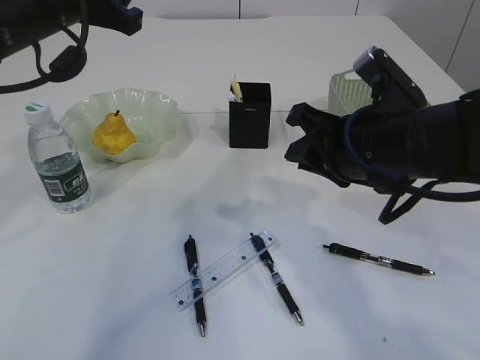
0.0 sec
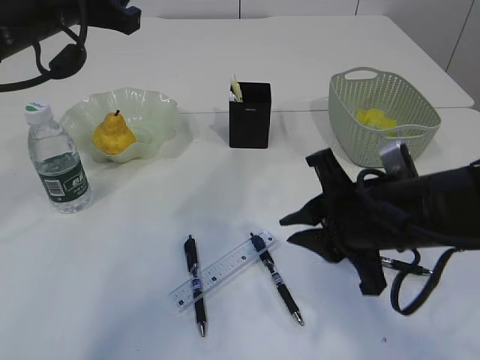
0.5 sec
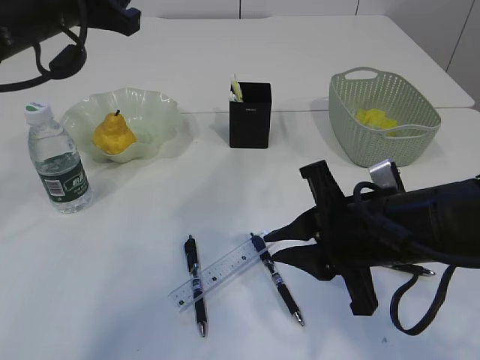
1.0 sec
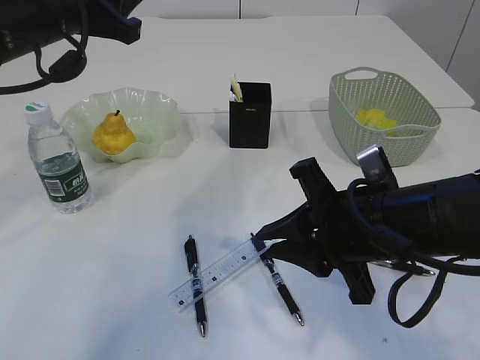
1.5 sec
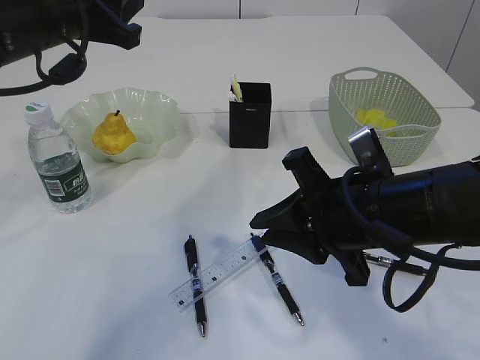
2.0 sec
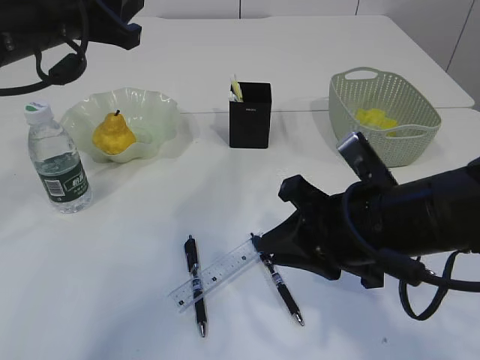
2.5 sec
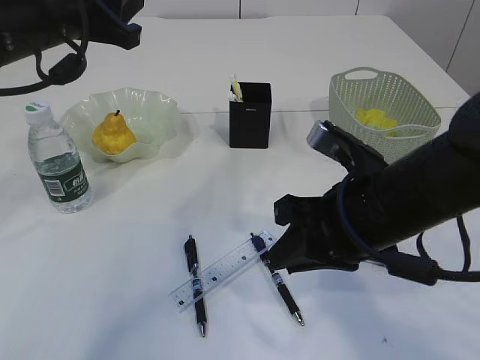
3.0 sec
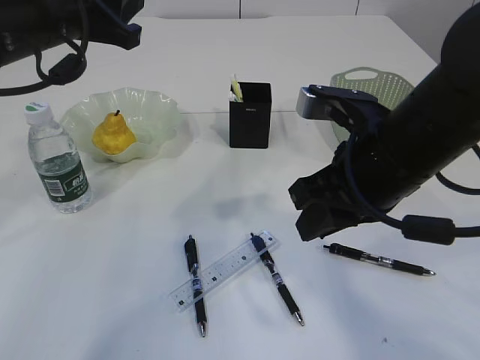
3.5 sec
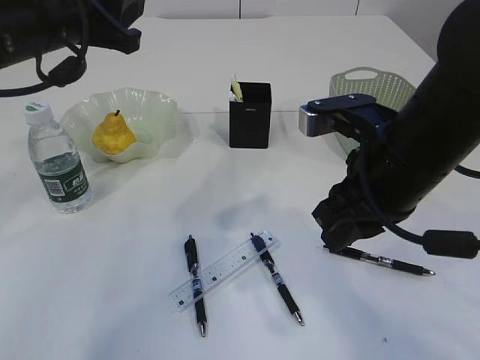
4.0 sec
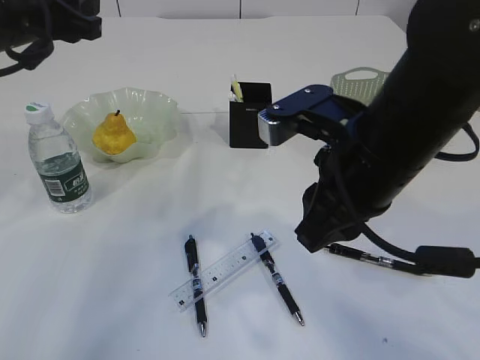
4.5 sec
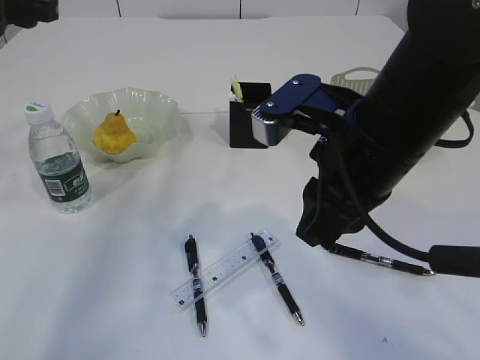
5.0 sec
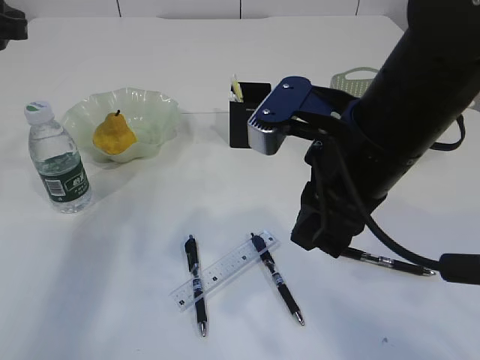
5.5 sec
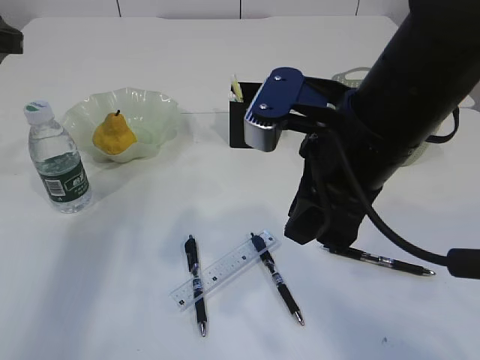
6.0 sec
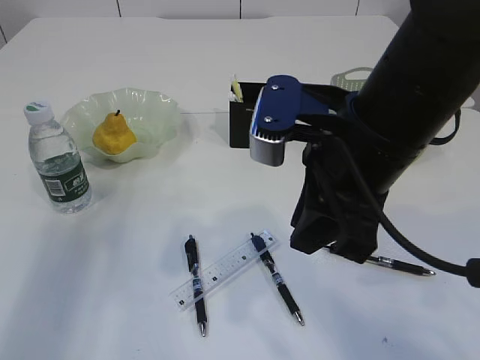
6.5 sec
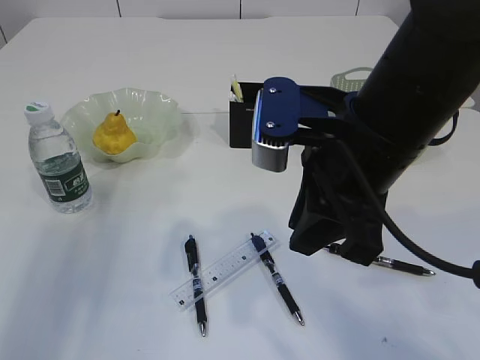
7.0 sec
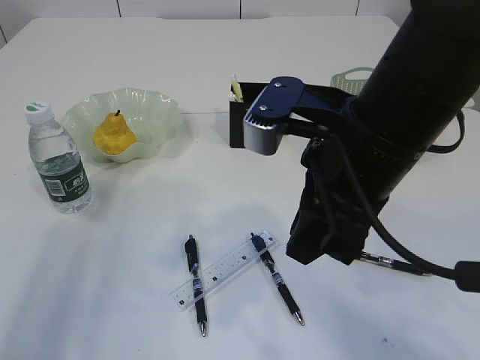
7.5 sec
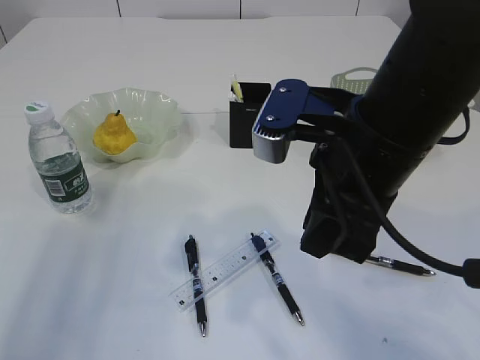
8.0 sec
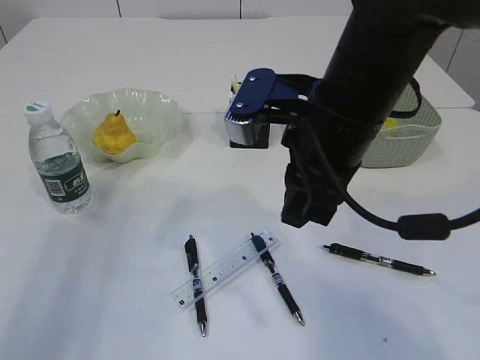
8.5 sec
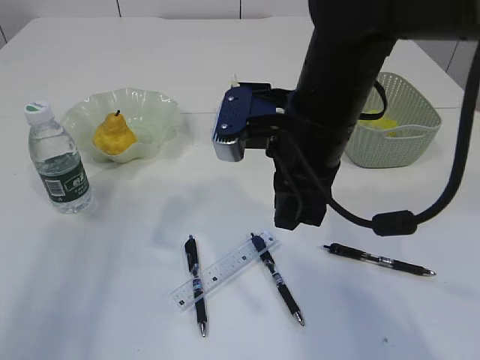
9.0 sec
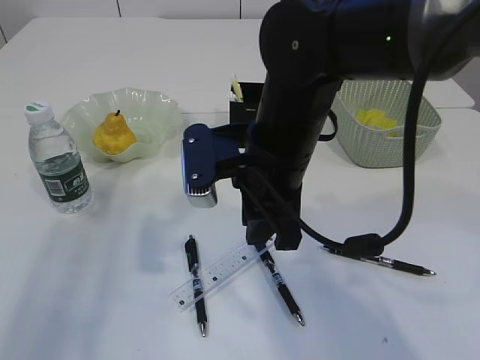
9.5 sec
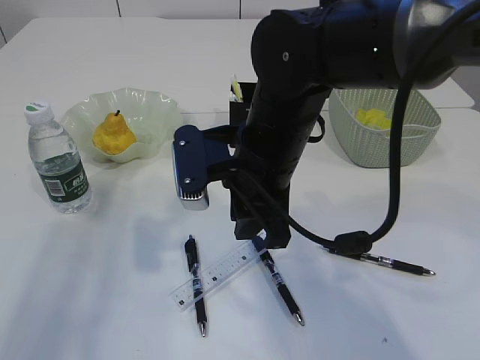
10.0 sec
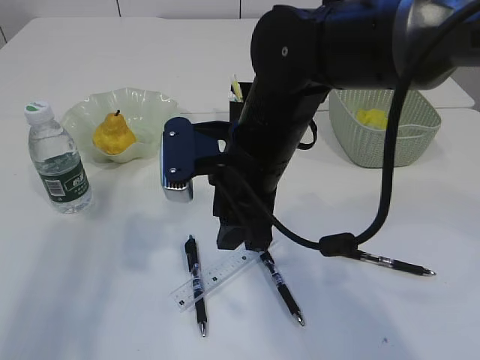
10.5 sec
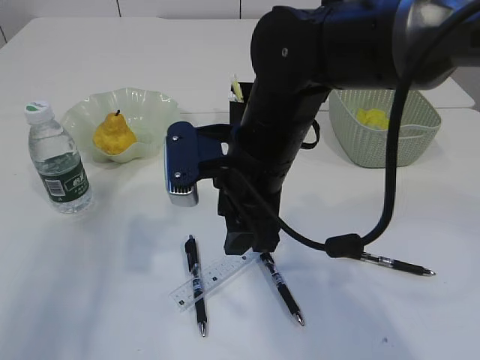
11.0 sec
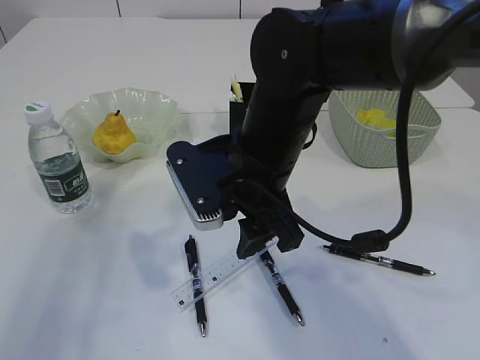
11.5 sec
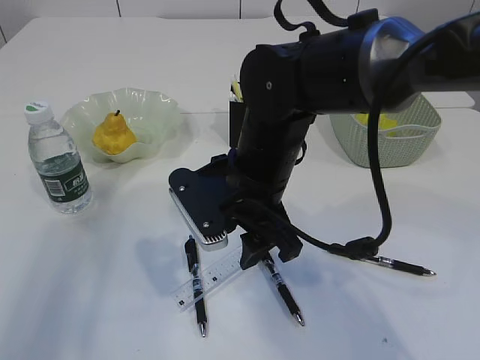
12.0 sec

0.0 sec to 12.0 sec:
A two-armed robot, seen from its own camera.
0.0 sec to 2.0 sec: The right gripper heads backward, covering about 5 cm.
2.0 sec to 4.0 sec: The right gripper ends up about 5 cm from where it was.
4.0 sec to 6.0 sec: The left gripper shifts roughly 10 cm to the left, while the right gripper ends up some 5 cm from where it was.
6.0 sec to 8.0 sec: The left gripper heads backward, covering about 15 cm.
8.0 sec to 10.0 sec: The right gripper goes some 10 cm to the left, forward and downward.
10.0 sec to 12.0 sec: The right gripper opens up.

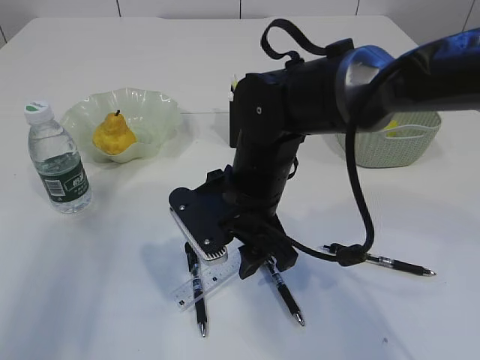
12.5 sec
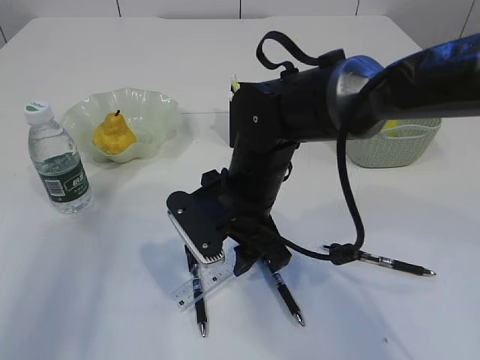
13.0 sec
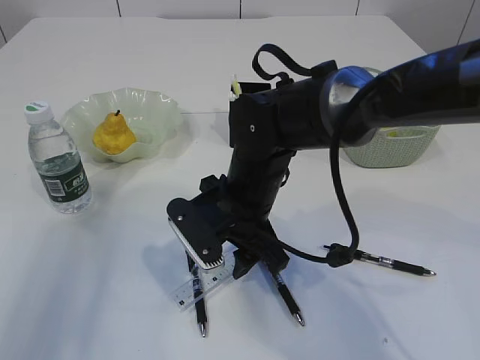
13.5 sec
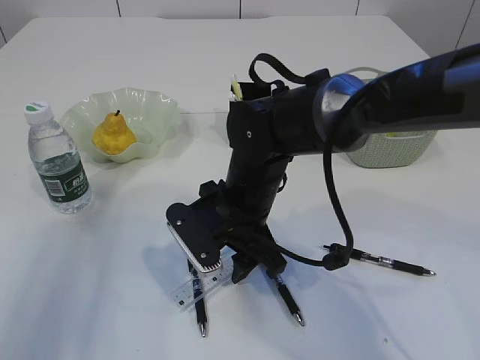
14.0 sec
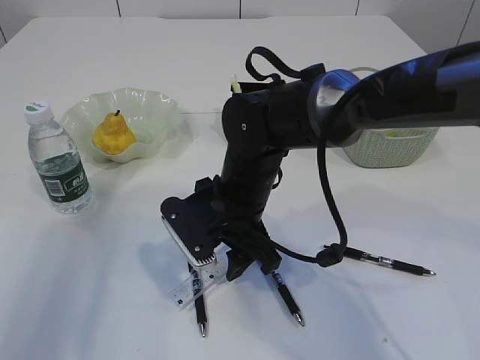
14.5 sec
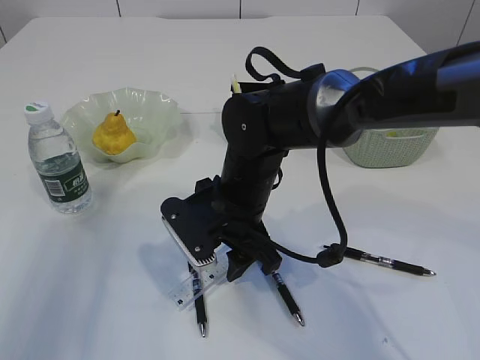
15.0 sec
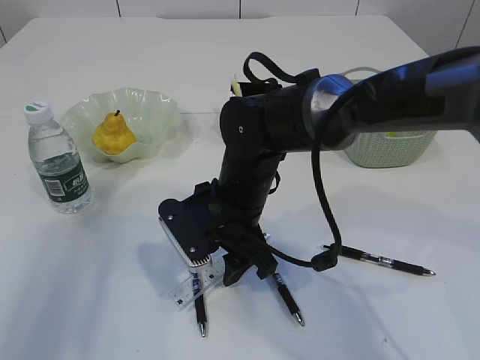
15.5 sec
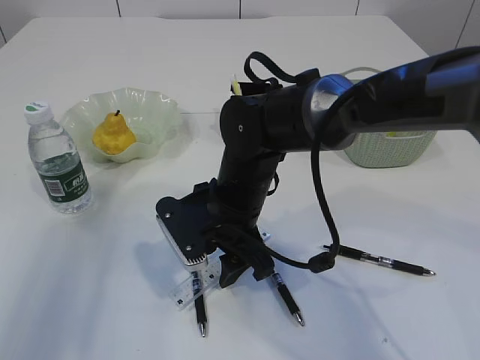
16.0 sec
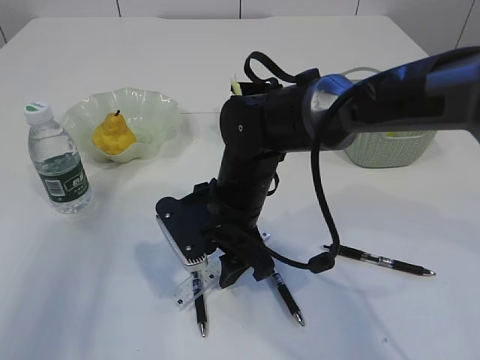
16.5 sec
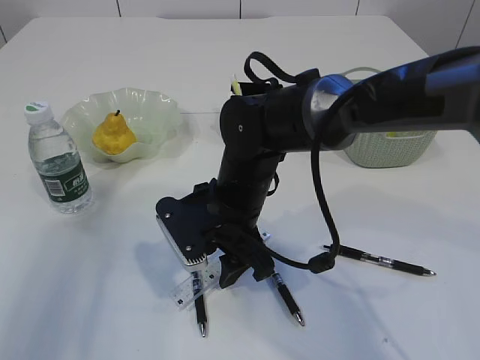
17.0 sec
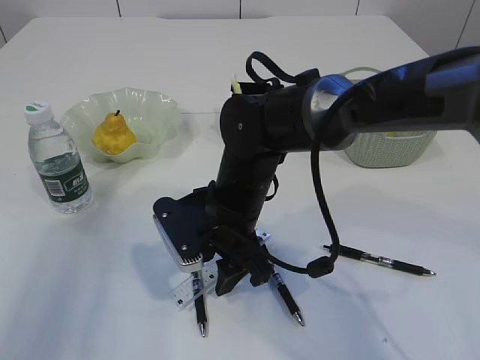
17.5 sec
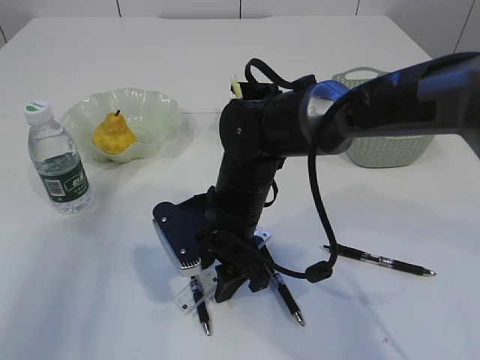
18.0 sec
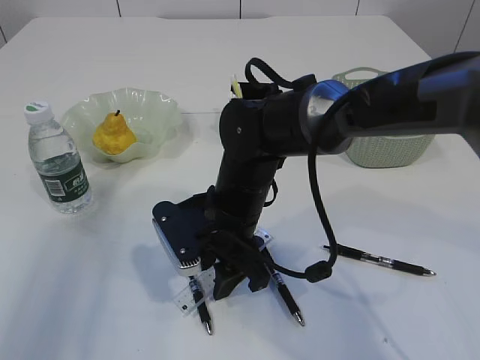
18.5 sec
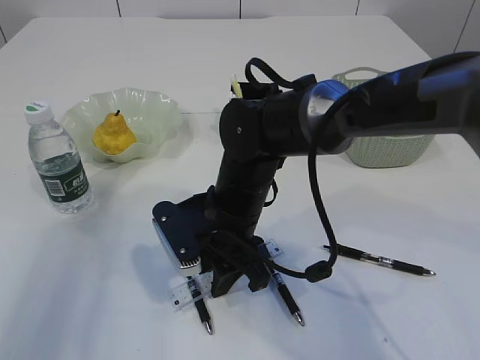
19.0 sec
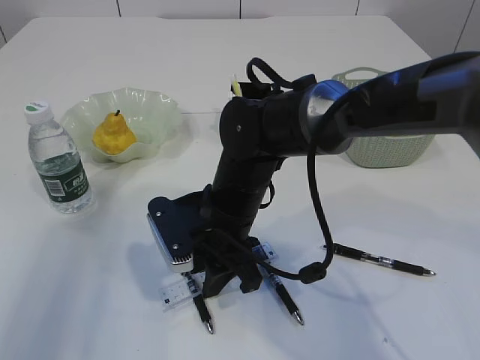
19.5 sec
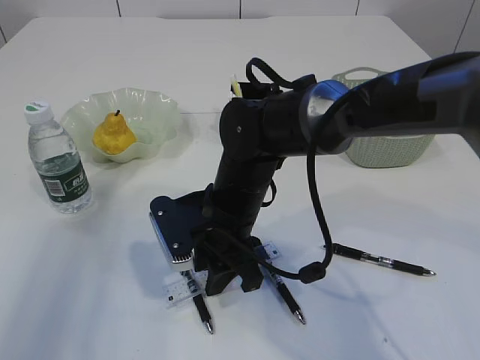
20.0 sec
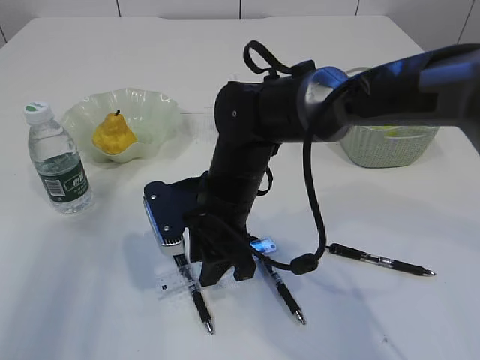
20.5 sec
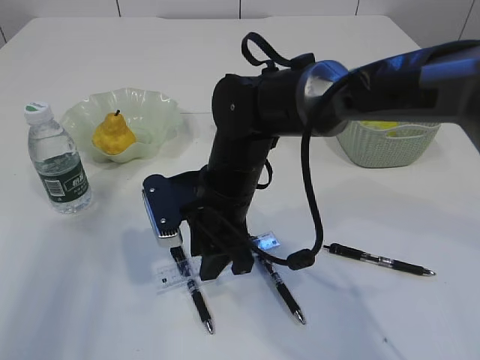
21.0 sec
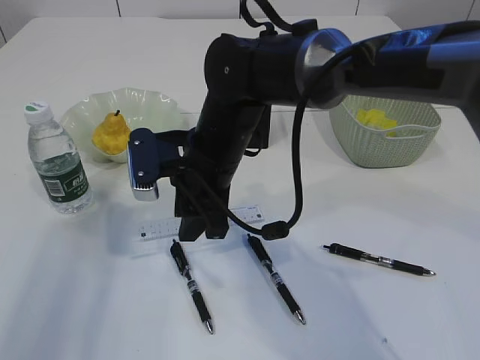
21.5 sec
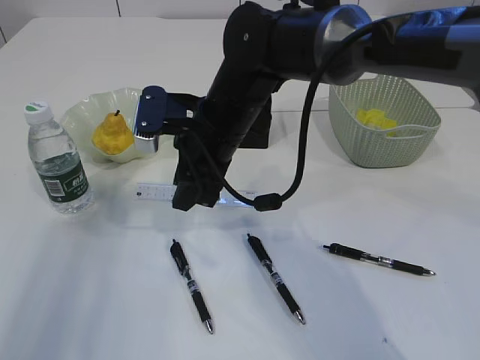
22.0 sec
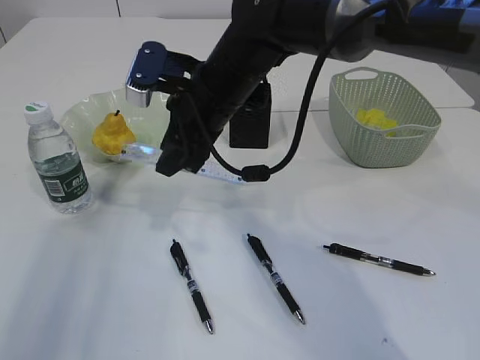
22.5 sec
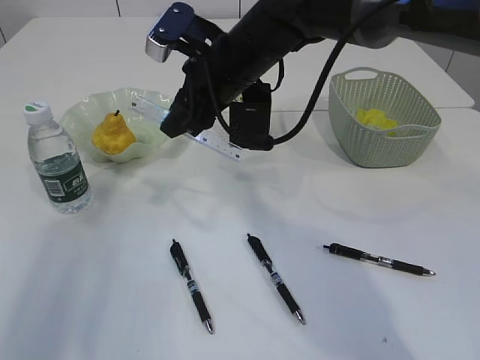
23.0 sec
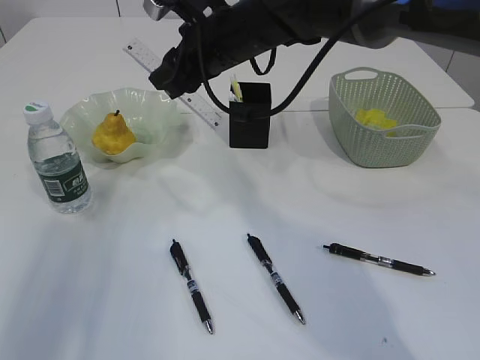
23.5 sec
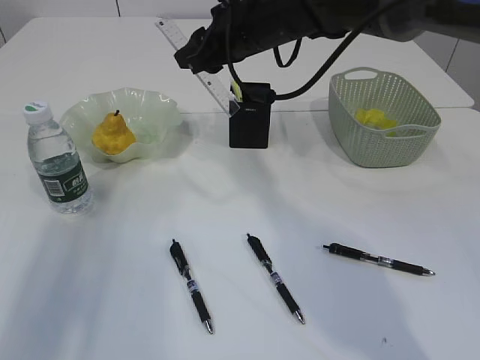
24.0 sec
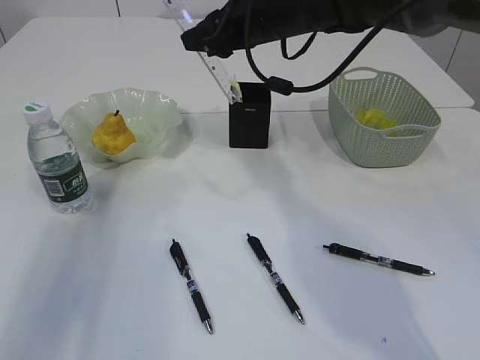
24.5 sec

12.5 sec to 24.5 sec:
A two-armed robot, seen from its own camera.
Step, 12.5 sec to 22.0 sec: pick up the ruler.
12.5 sec to 14.5 sec: The grippers make only small movements.
14.5 sec to 16.5 sec: The two grippers keep their place.
16.5 sec to 20.5 sec: The grippers stay close to where they were, moving slightly.
20.5 sec to 22.5 sec: The right gripper is displaced upward and forward by about 10 cm.
22.5 sec to 24.5 sec: The right gripper travels forward and to the right by roughly 10 cm.

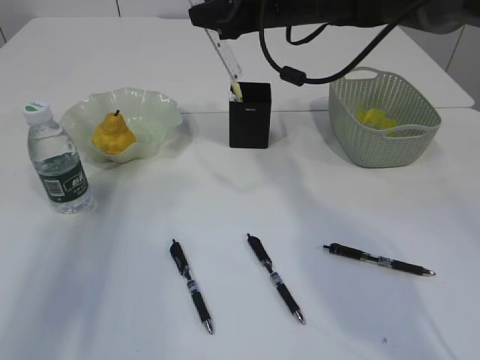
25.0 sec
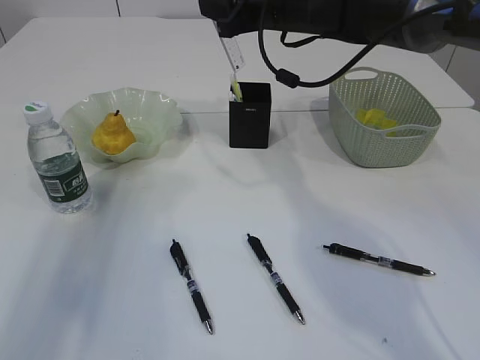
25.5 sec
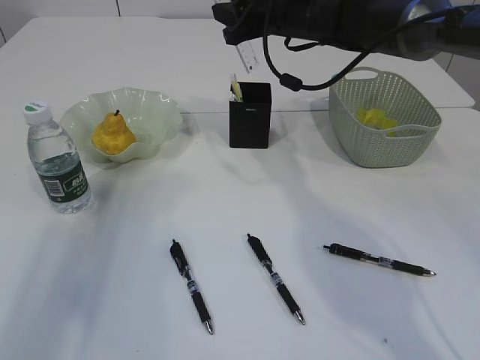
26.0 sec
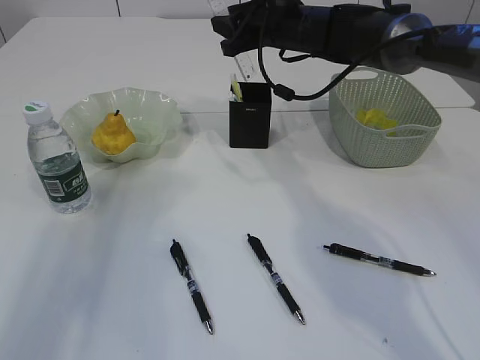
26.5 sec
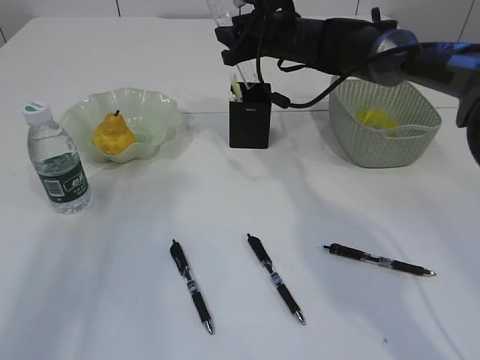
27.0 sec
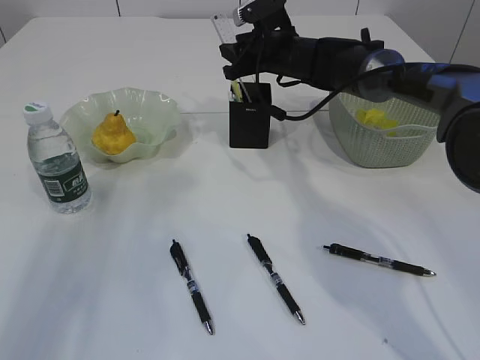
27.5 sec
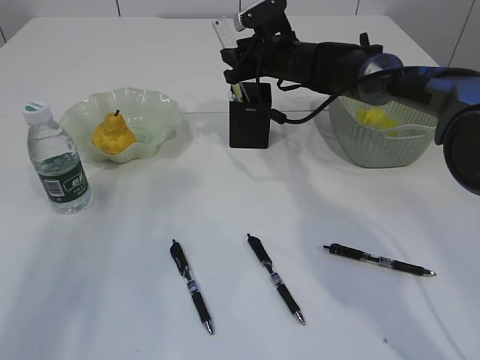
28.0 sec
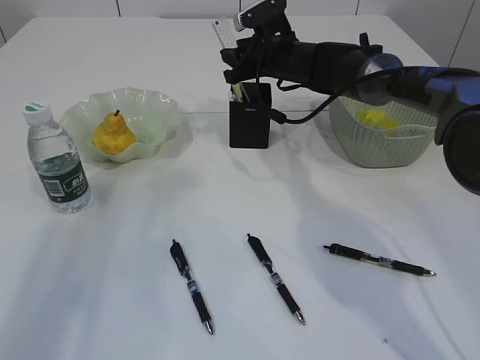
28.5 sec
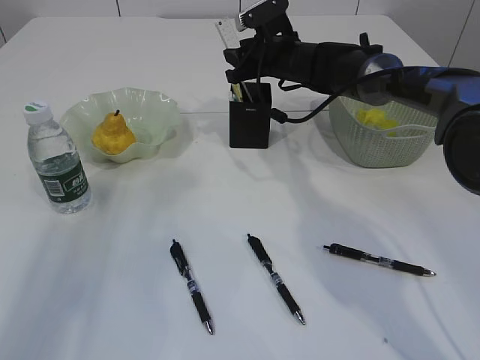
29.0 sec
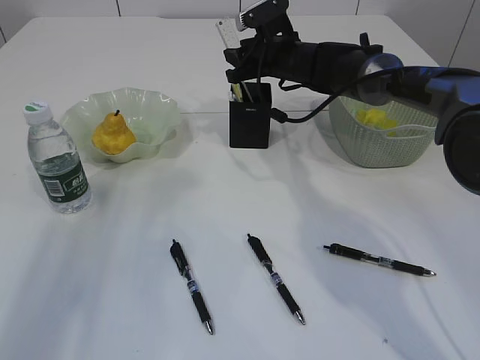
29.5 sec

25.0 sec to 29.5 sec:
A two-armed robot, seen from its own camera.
25.0 sec to 27.0 sec: The right gripper shifts roughly 10 cm downward and forward.
27.0 sec to 29.5 sec: There are only small adjustments of the grippers.
